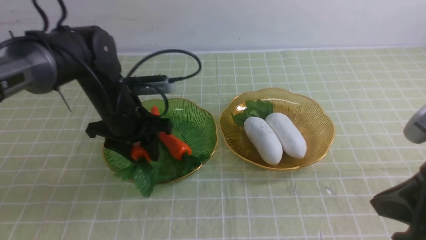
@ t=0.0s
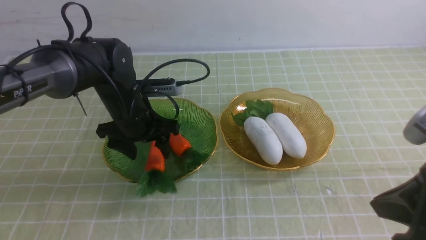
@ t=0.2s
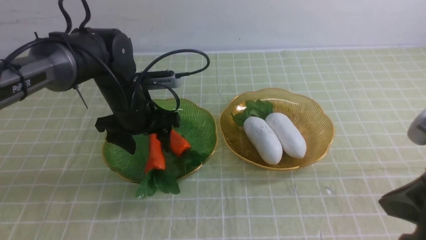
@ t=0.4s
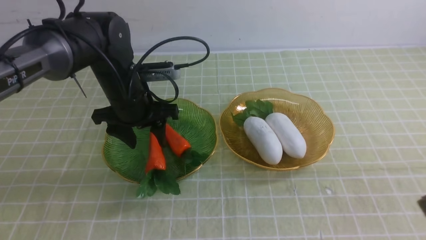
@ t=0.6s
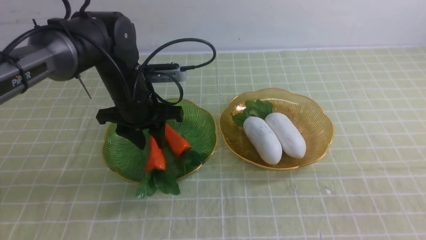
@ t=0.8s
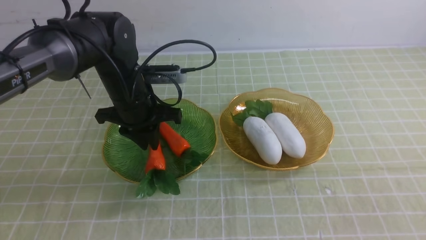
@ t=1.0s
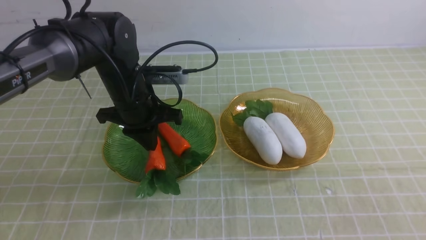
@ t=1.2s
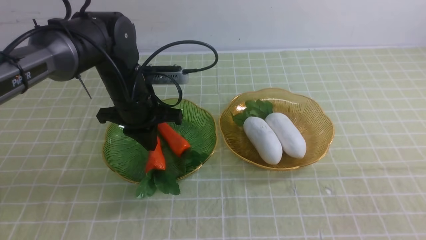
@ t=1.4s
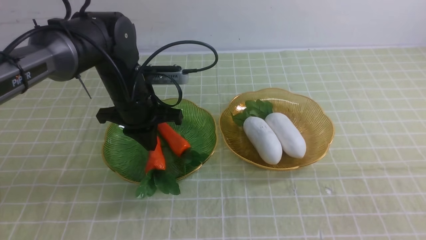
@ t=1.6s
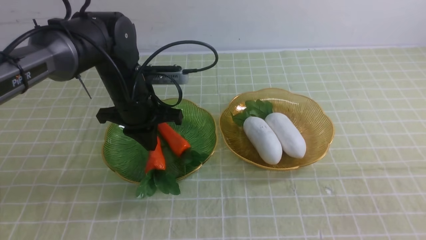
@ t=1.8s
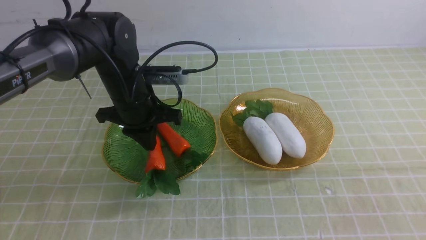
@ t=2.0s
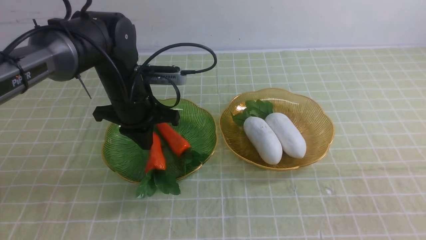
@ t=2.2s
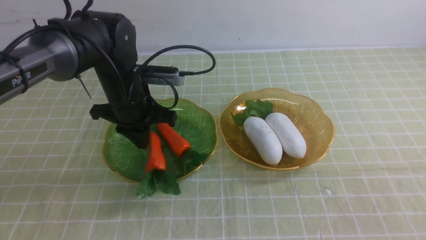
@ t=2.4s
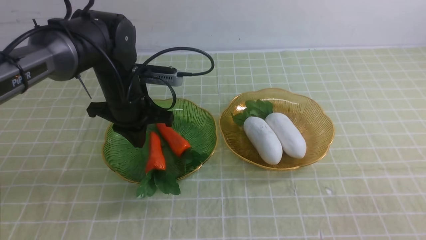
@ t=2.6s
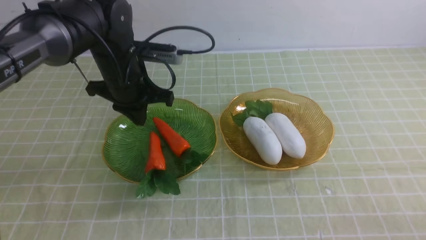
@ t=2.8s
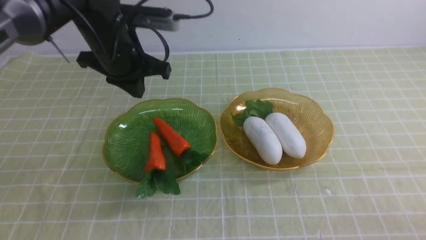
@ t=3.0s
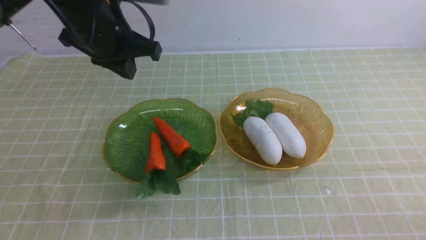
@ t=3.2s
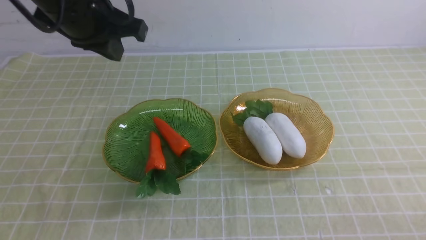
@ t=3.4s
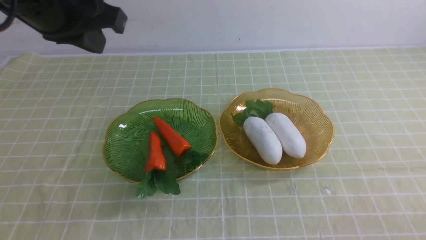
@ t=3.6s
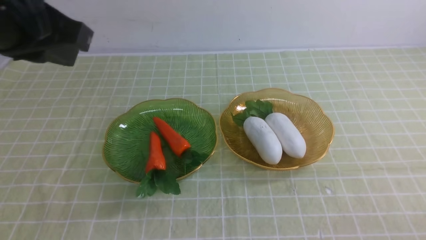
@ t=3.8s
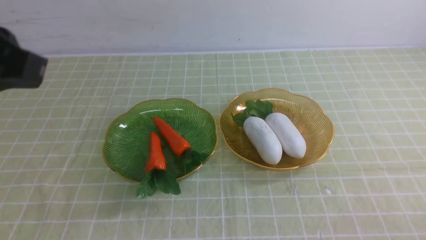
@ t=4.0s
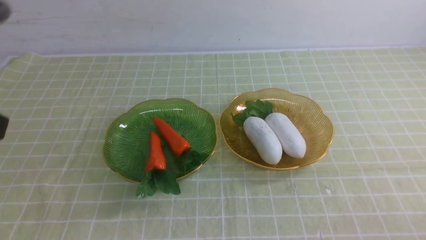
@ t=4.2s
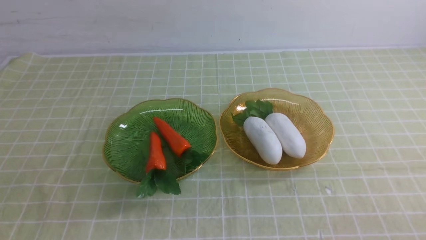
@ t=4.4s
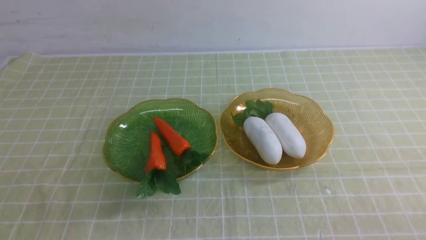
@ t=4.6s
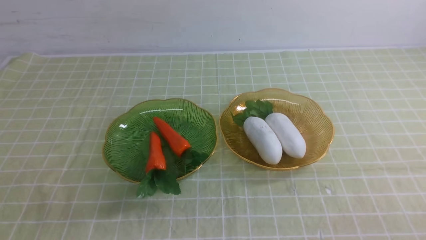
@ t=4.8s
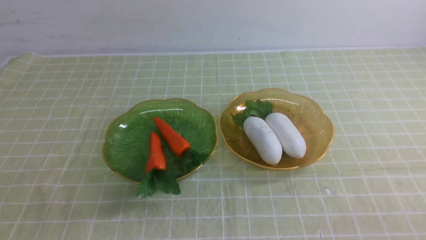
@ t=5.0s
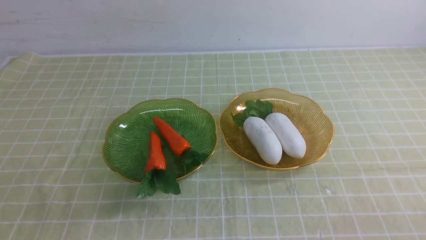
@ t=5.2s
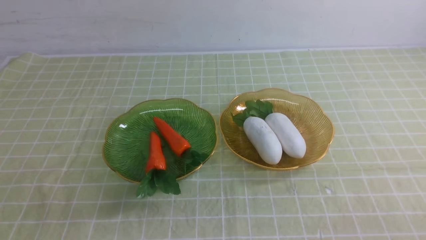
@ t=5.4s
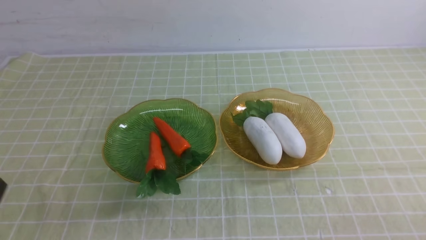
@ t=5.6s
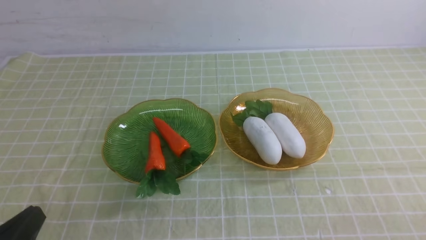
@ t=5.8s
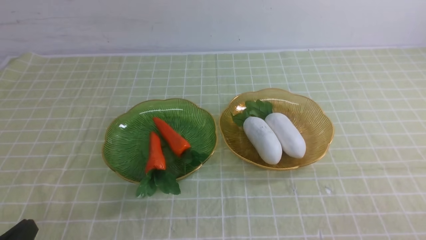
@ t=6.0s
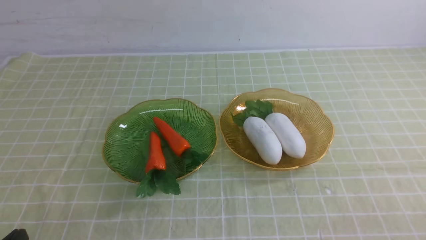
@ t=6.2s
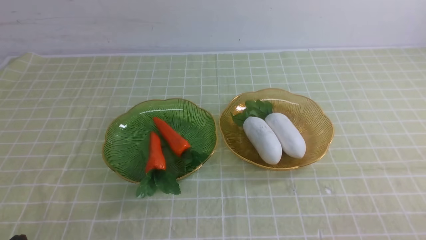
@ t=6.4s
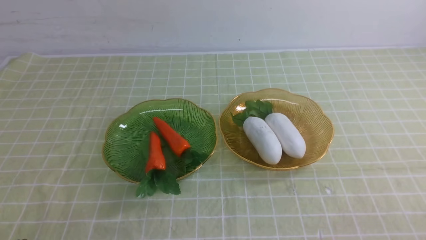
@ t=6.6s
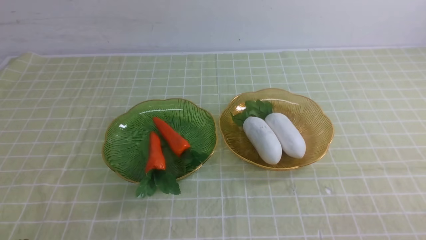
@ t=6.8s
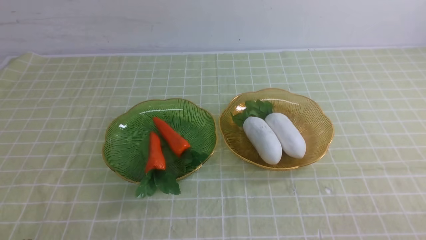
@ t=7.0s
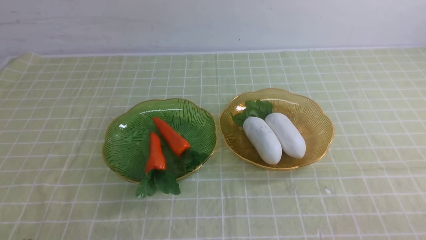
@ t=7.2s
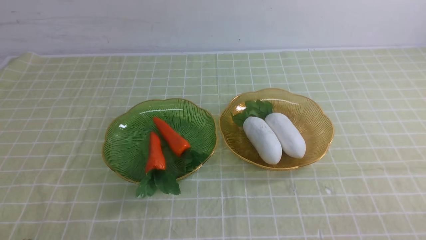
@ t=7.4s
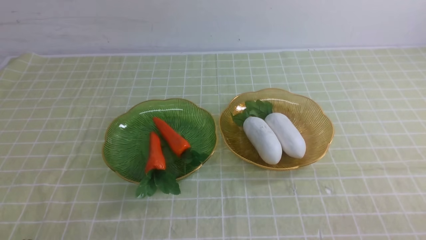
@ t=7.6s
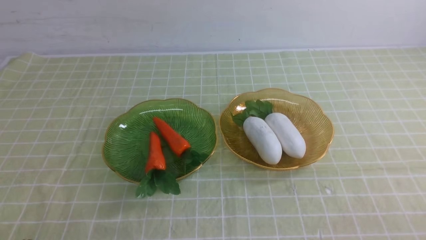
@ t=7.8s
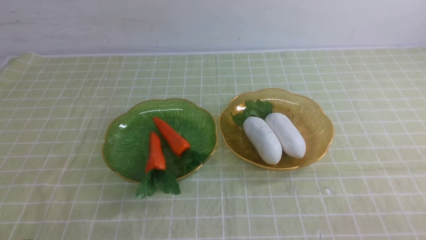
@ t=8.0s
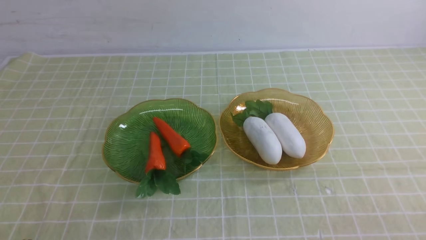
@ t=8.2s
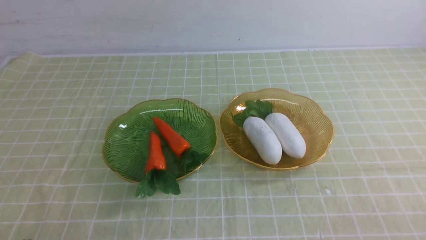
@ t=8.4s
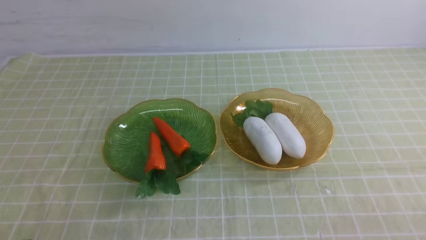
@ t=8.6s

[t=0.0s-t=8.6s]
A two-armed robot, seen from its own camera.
t=0.0s to t=1.4s: The right gripper moves backward and to the right, approximately 10 cm; the left gripper closes its fingers.
t=1.4s to t=2.8s: The right gripper is displaced downward by roughly 10 cm.
t=2.8s to t=4.4s: The left gripper shifts approximately 35 cm backward.
t=4.4s to t=5.8s: The left gripper heads downward, covering some 15 cm.
t=5.8s to t=7.2s: The left gripper is displaced downward by about 5 cm.
t=7.2s to t=8.6s: The two grippers keep their place.
